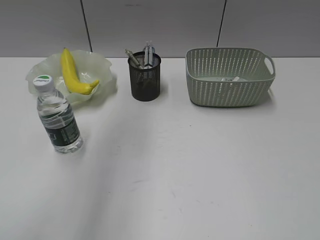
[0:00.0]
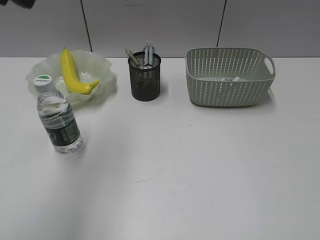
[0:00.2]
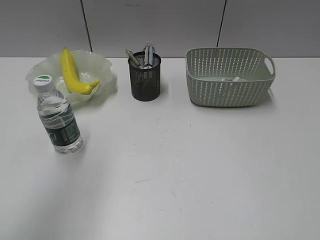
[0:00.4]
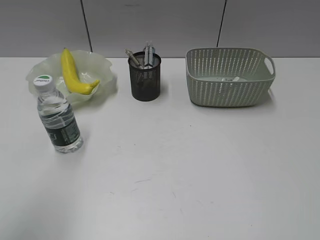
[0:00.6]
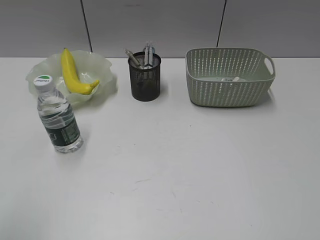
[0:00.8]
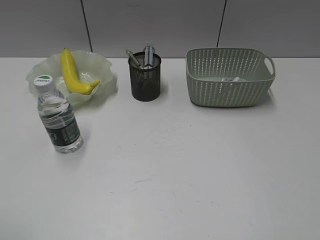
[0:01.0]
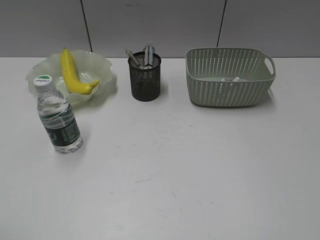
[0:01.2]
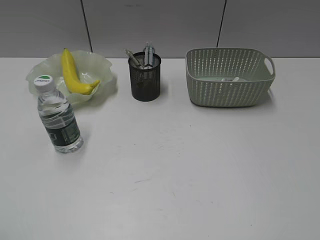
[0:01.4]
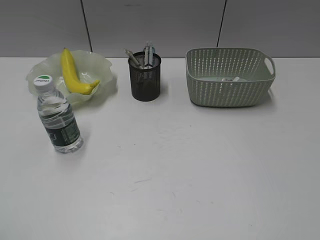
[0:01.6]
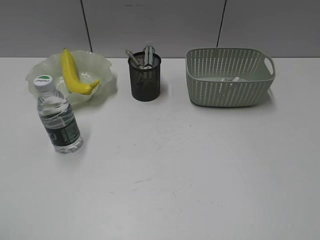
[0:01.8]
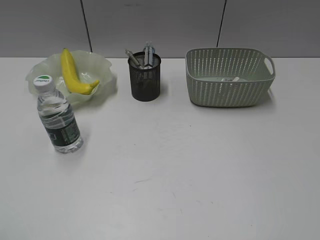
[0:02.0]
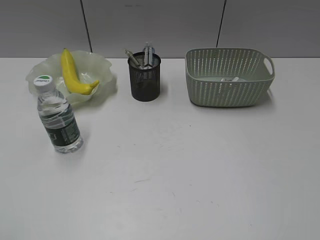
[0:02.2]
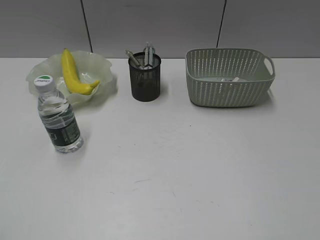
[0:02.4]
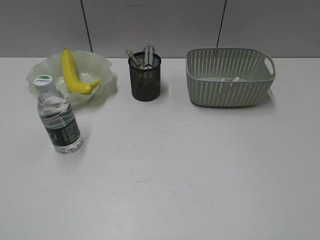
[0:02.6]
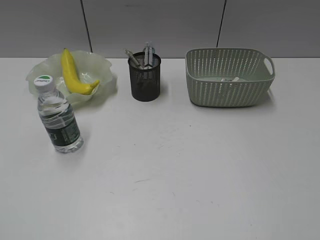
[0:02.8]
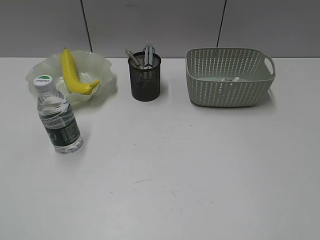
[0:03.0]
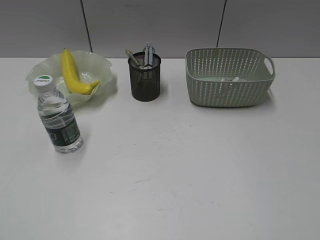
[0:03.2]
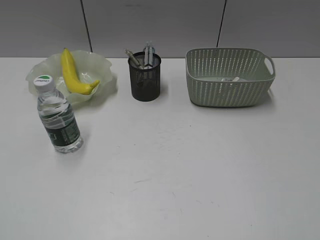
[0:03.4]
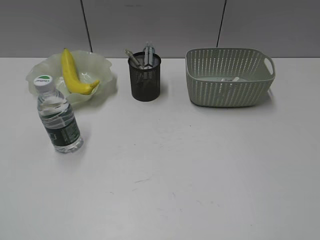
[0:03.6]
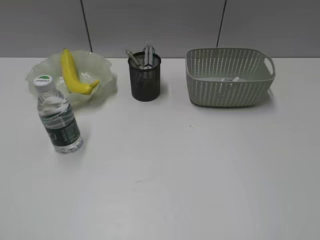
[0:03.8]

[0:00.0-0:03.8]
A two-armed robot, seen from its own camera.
0:00.0 to 0:01.2: The left gripper shifts roughly 35 cm backward, to the left and downward.
0:02.6 to 0:03.8: The two grippers keep their place.
